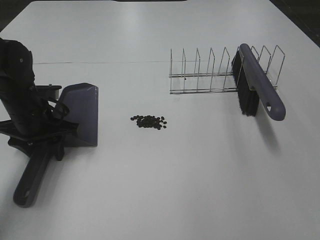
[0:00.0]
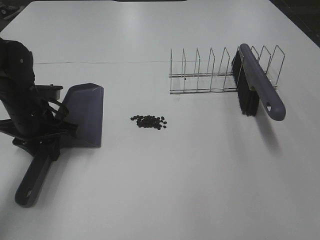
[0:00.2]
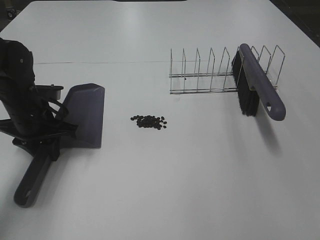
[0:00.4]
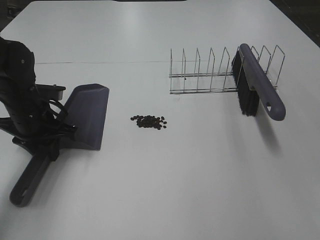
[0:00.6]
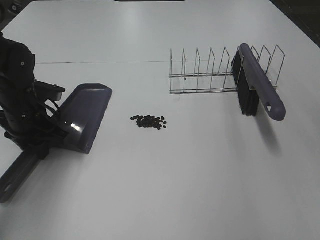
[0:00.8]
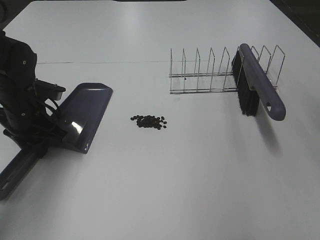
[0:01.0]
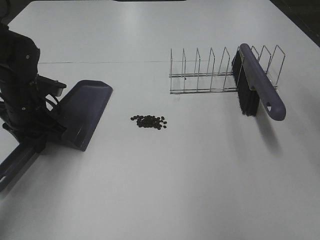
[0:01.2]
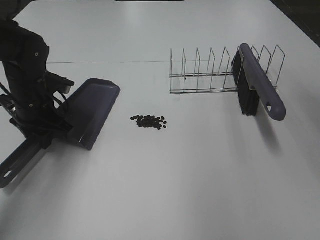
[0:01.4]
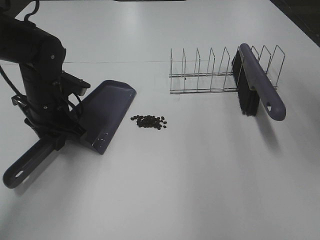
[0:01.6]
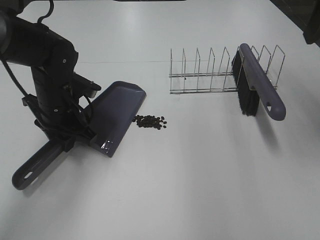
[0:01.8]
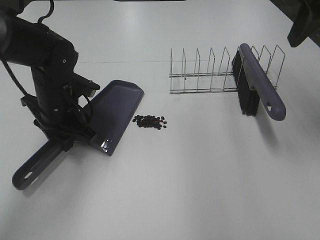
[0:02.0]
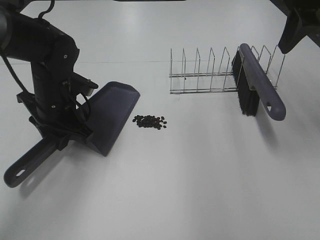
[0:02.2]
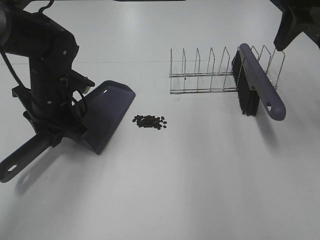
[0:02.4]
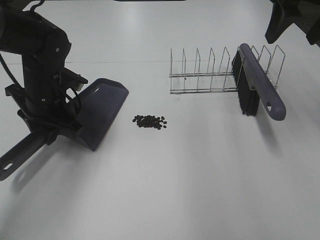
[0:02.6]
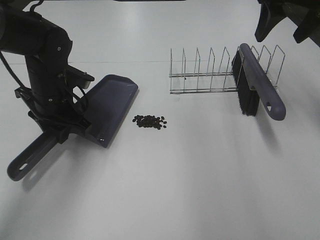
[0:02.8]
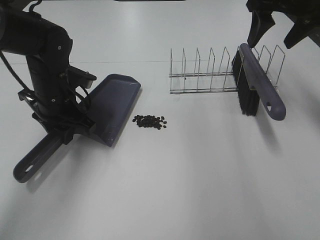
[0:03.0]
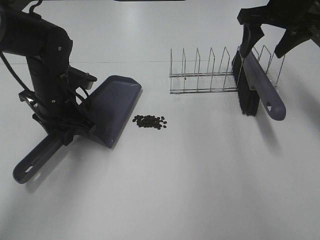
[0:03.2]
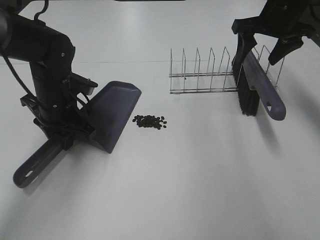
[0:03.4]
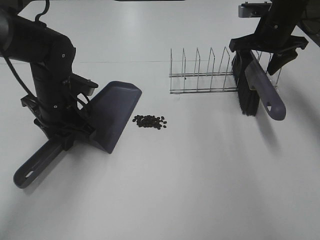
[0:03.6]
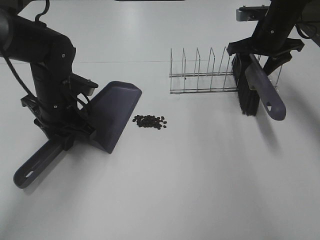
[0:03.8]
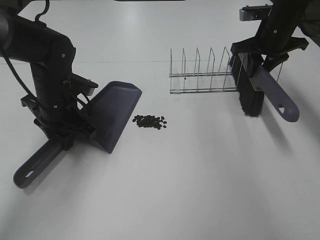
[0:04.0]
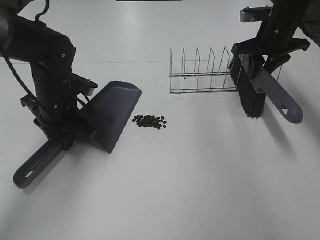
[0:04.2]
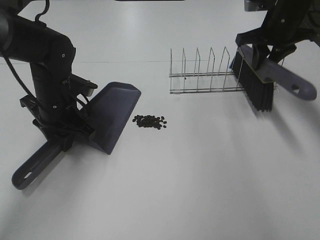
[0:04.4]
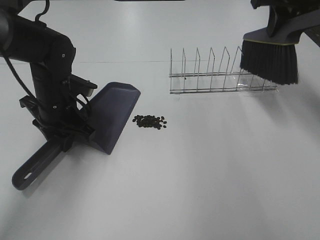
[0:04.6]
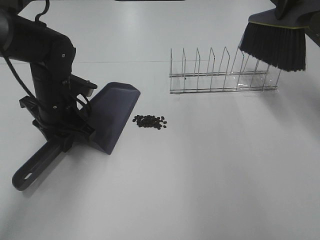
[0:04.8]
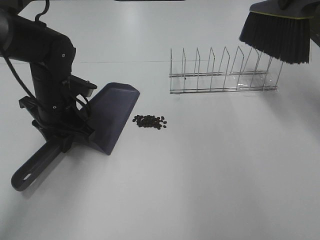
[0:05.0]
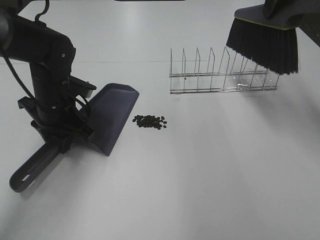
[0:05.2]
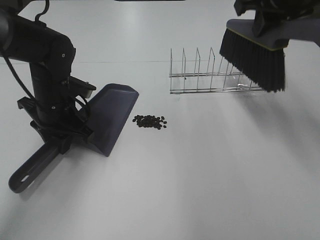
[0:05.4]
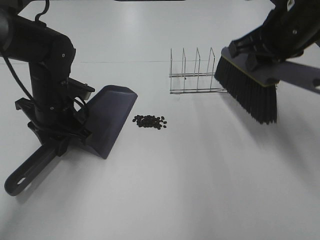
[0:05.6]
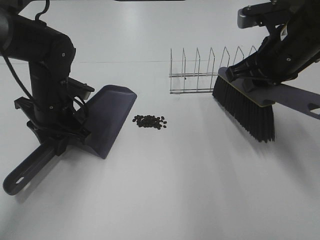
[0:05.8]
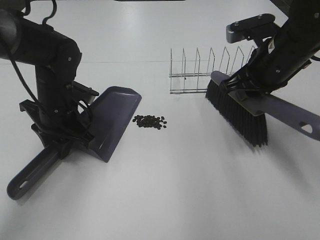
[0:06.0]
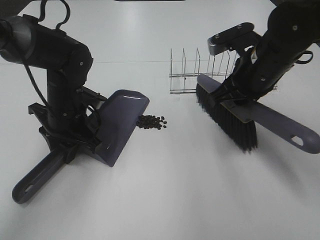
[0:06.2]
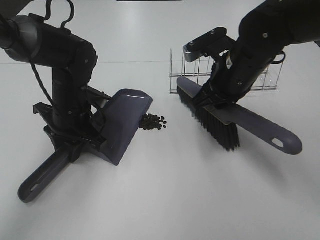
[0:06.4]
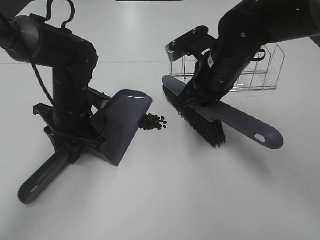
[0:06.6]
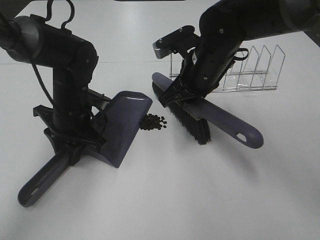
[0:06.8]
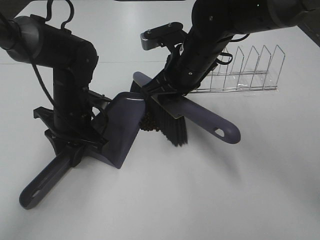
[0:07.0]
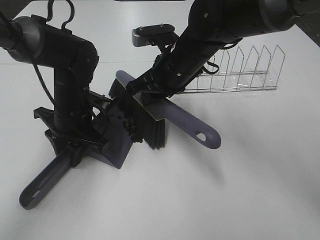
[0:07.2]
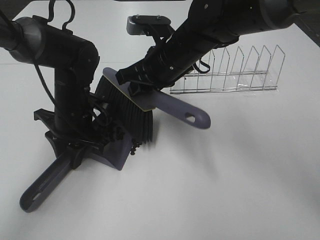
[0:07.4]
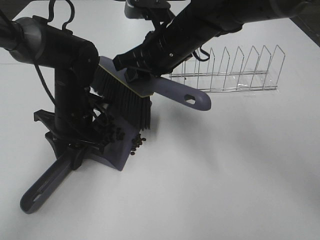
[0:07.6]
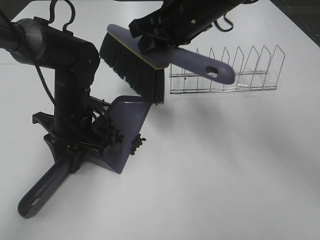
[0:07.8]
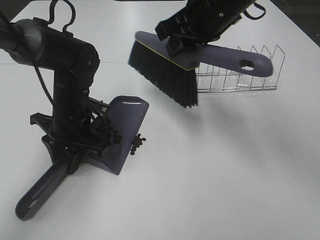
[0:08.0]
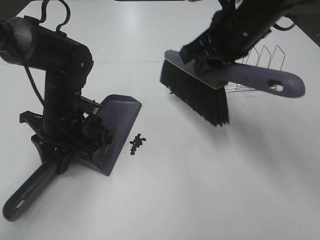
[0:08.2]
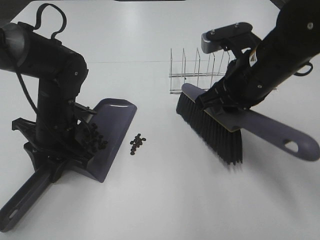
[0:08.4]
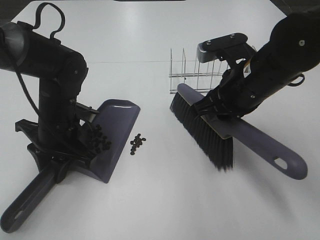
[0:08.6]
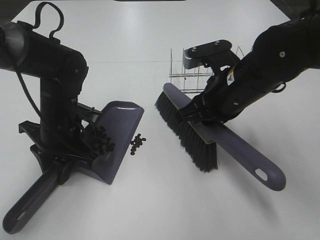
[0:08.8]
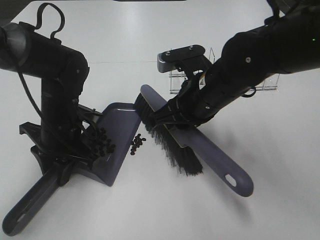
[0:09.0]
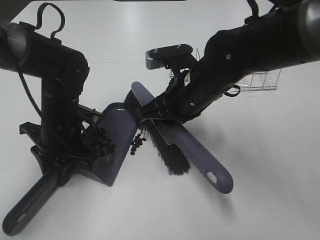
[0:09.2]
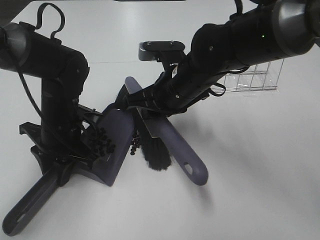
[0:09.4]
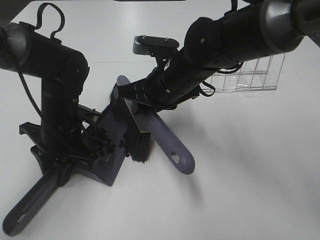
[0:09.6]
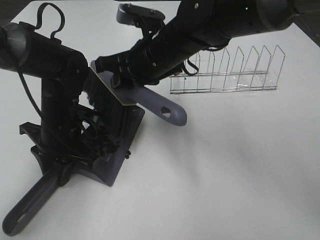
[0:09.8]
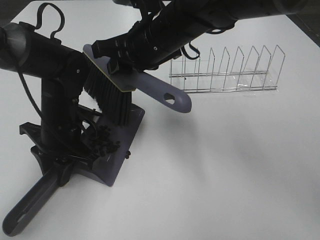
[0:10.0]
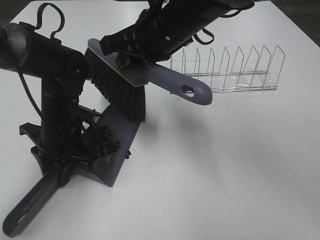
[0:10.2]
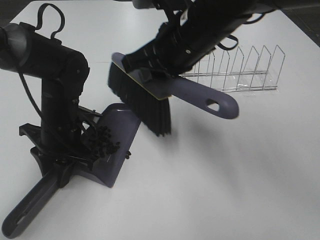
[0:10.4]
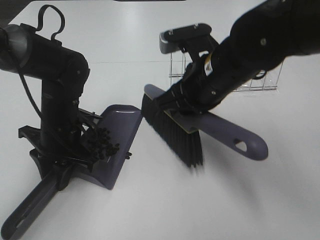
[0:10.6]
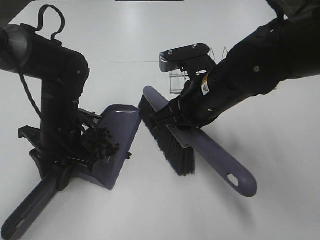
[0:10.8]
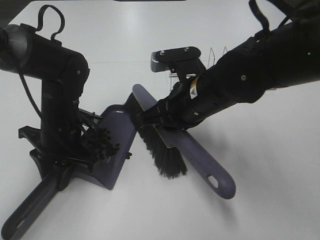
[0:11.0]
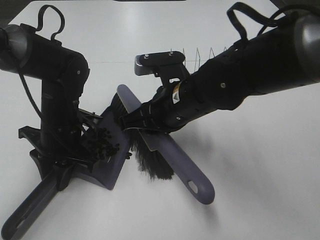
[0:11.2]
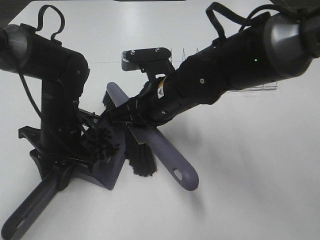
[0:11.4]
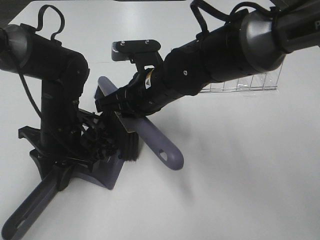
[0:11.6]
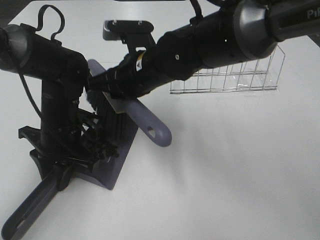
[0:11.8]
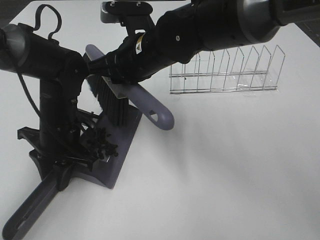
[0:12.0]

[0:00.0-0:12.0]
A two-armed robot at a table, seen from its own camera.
Task of the whole recording: Sweep Coffee Bean.
Step, 0:00.0 to 0:04.0: Right hand:grab the broom.
Step, 0:00.4 to 0:03.4: Left hand: move the dustpan to the left side of the coffee beans.
Step, 0:03.6 to 0:11.8: Right hand:sweep the coffee beans into the dustpan.
0:00.0 to 0:01.6: The right gripper moves forward, some 25 cm.
0:01.6 to 0:03.0: The right gripper heads forward and downward, covering some 15 cm.
0:03.0 to 0:04.4: The right gripper is displaced downward by roughly 5 cm, and closes up.
0:04.4 to 0:06.0: The right gripper heads backward and to the left, covering some 15 cm, and reaches approximately 15 cm upward, then returns.
0:06.0 to 0:07.6: The right gripper is displaced to the left by approximately 15 cm.
0:07.6 to 0:09.0: The right gripper goes some 10 cm backward.
0:09.0 to 0:10.4: The right gripper goes approximately 5 cm upward.
0:10.4 to 0:12.0: The right gripper goes about 5 cm to the left.

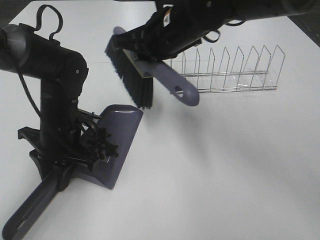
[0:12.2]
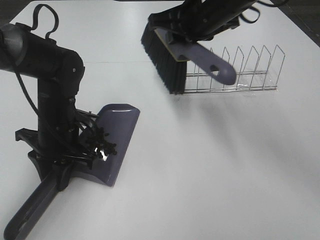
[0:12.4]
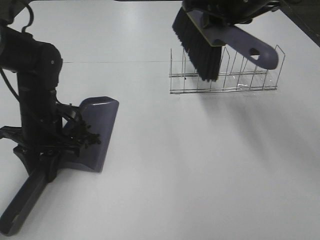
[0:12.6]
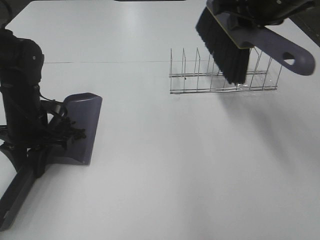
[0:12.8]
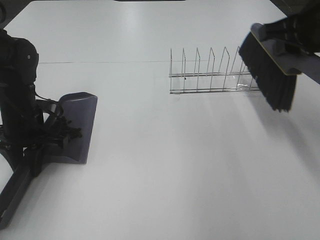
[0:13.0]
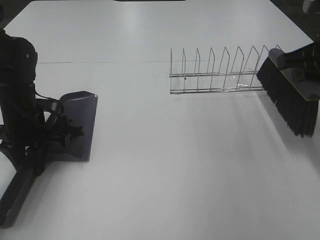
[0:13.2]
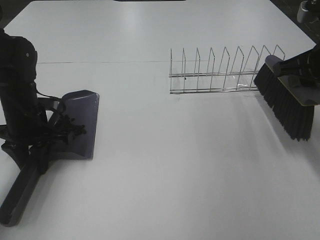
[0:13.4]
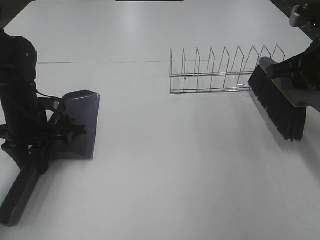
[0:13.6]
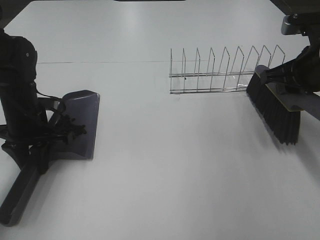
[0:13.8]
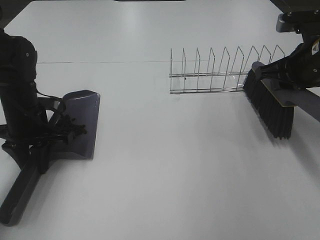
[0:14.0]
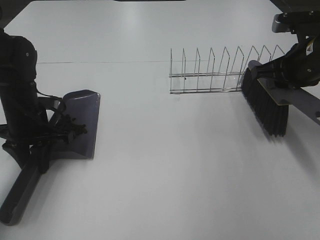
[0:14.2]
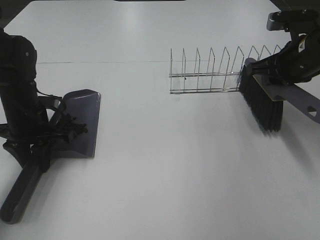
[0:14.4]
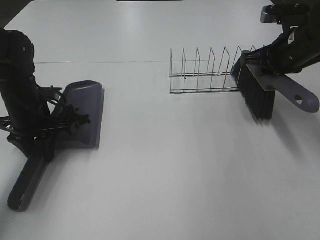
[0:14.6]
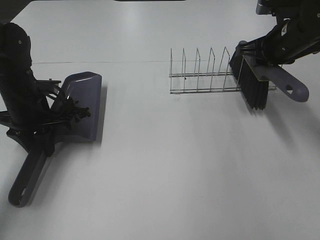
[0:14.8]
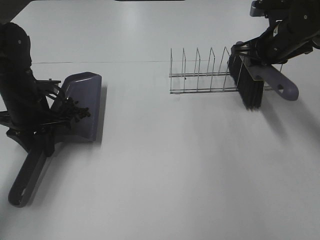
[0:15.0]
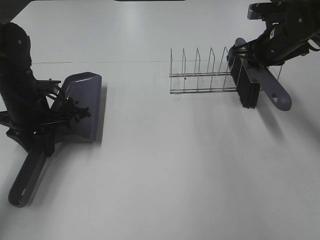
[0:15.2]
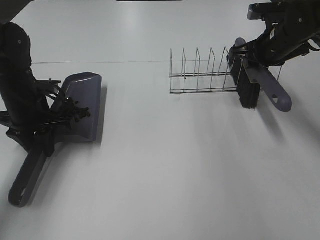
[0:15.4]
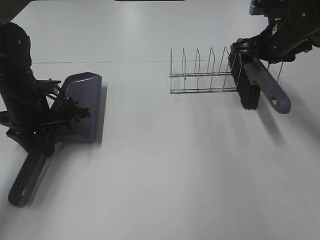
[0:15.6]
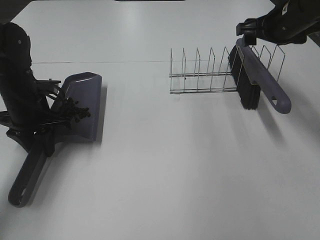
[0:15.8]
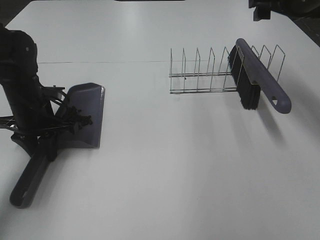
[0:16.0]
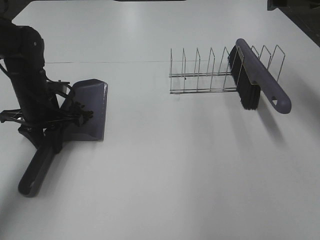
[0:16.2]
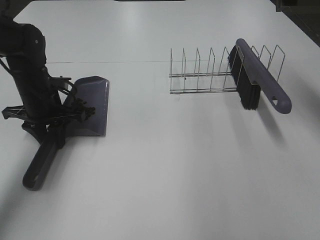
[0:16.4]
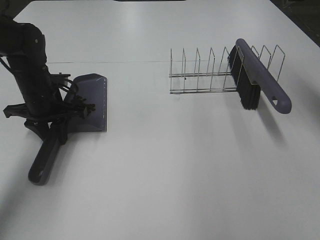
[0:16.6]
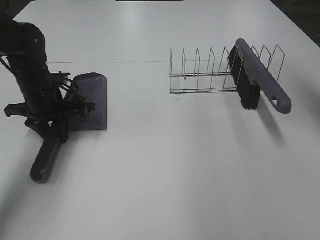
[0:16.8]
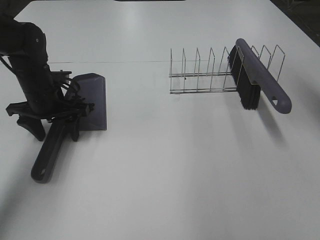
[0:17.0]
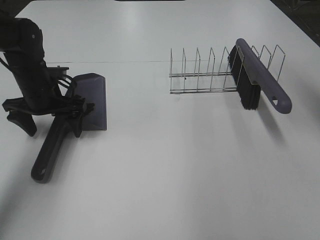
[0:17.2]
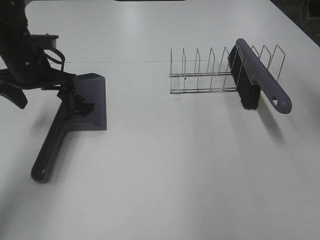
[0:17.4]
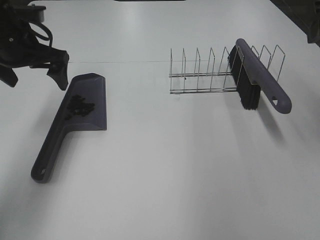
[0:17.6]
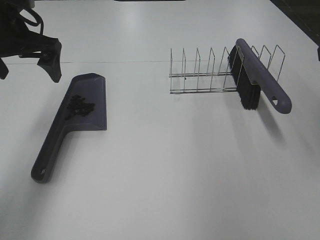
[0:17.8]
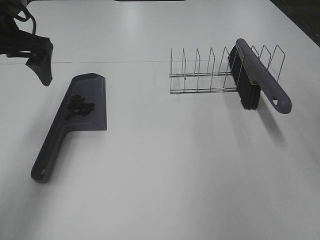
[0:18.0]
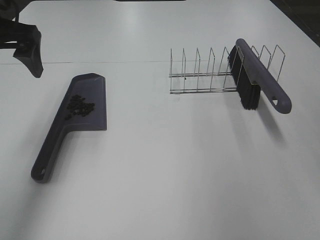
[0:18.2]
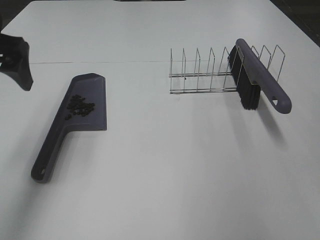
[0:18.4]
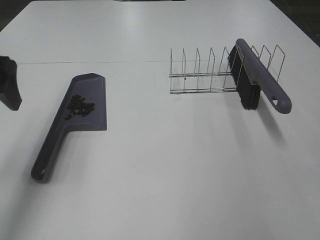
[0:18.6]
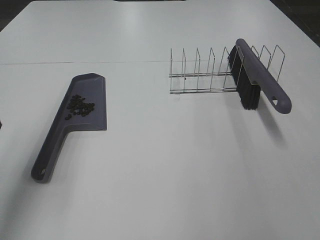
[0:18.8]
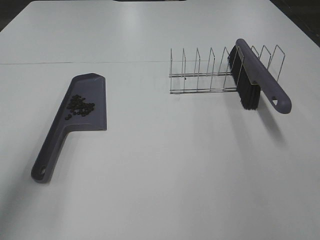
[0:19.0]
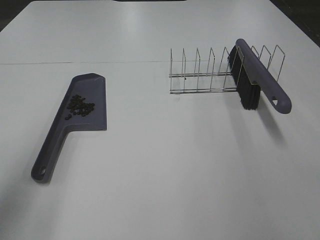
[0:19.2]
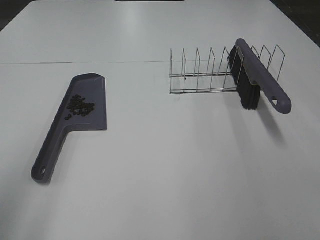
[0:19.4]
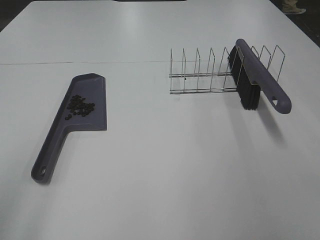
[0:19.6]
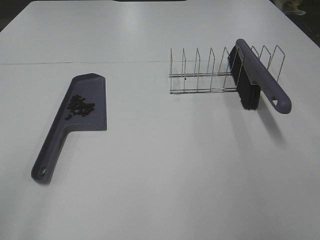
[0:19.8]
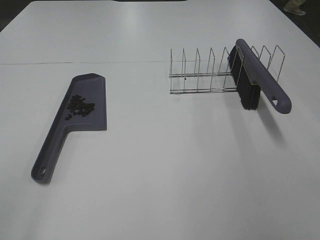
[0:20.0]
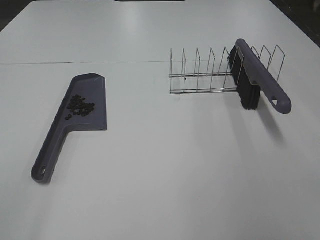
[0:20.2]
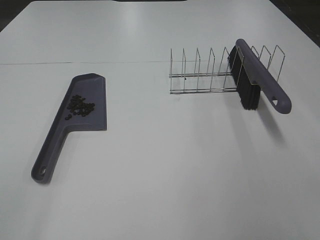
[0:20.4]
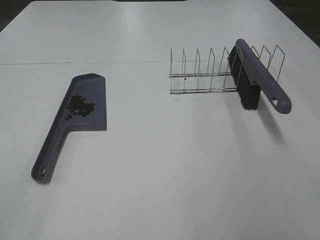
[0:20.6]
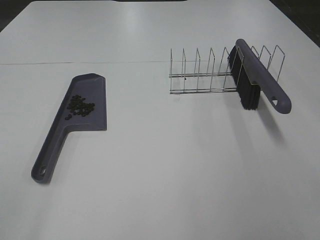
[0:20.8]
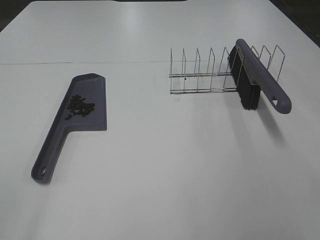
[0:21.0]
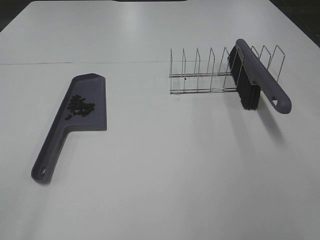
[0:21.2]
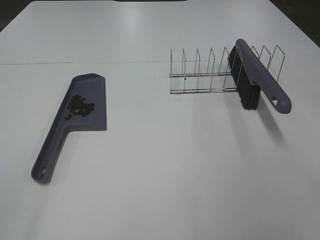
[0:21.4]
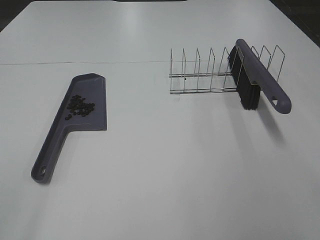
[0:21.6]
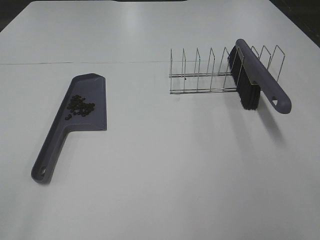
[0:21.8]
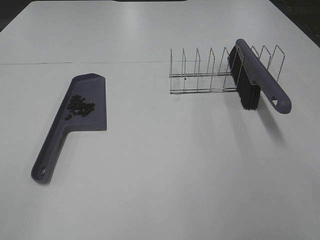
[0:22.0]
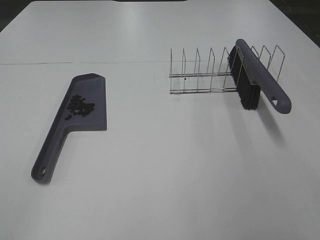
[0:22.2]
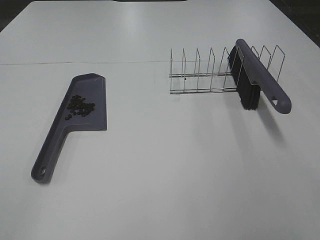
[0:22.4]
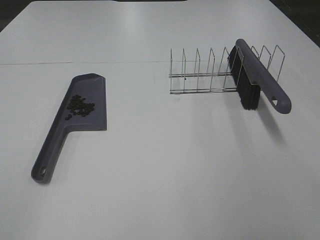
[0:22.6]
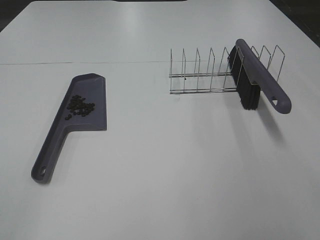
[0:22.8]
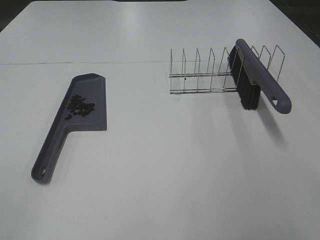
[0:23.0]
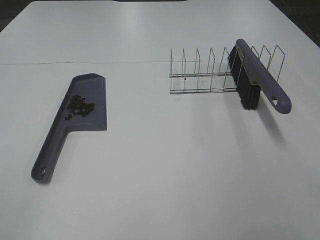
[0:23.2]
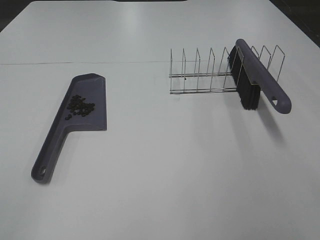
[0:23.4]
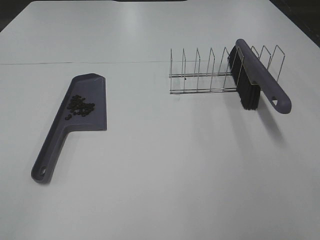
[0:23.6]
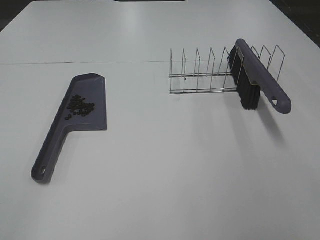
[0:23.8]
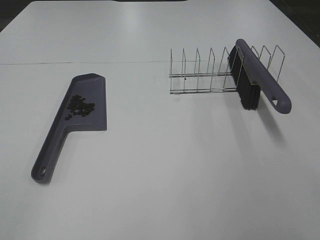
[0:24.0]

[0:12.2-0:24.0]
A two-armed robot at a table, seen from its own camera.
Task of the whole recording: Sweep Coffee Bean.
Step, 0:12.2 to 0:15.4: Right hand:place the broom on the rack.
Step, 0:15.6 to 0:17.0: Left hand:place the dustpan on the table.
0:12.2 to 0:13.6: The right gripper travels to the right by roughly 20 cm, while the left gripper goes approximately 5 cm to the left.
0:13.6 to 0:15.2: The right gripper moves forward, about 15 cm.
0:15.2 to 0:16.6: The right gripper heads upward and backward, covering some 20 cm, and opens.
0:16.6 to 0:18.2: The left gripper shifts roughly 20 cm upward, and opens its fingers, while the right gripper moves backward, about 20 cm.
0:18.2 to 0:19.6: The left gripper travels backward by some 25 cm.
0:22.6 to 0:24.0: The two grippers keep their place.
